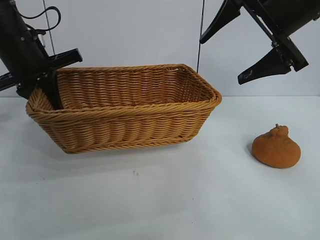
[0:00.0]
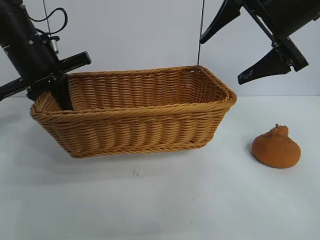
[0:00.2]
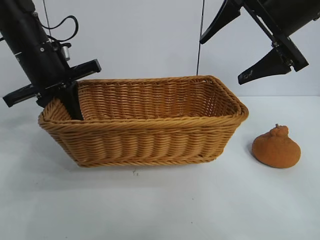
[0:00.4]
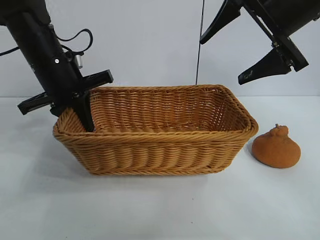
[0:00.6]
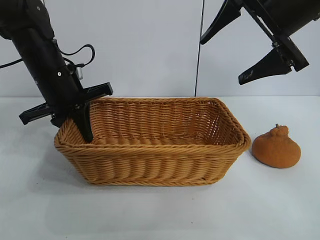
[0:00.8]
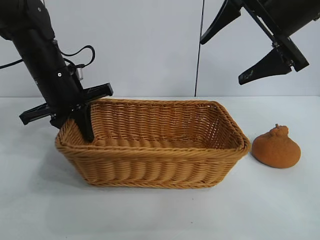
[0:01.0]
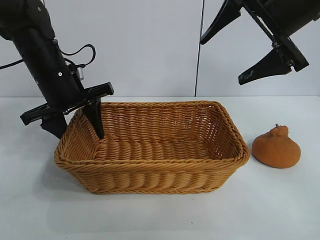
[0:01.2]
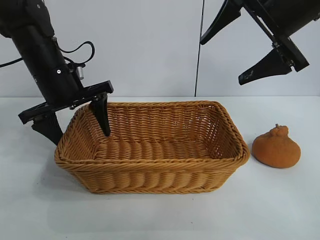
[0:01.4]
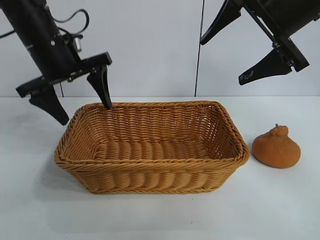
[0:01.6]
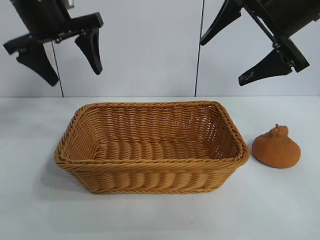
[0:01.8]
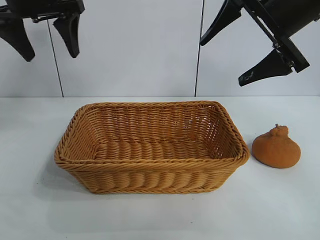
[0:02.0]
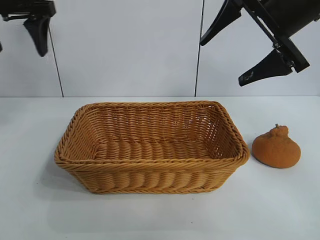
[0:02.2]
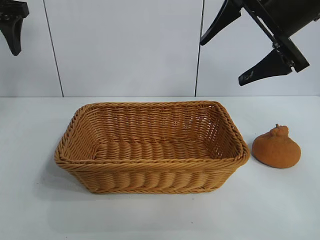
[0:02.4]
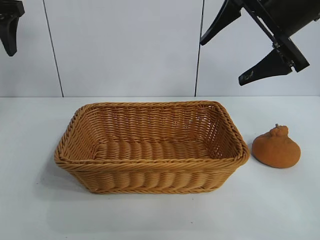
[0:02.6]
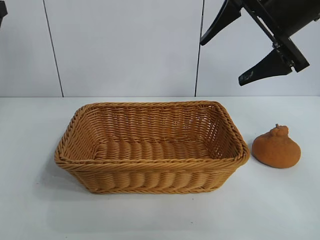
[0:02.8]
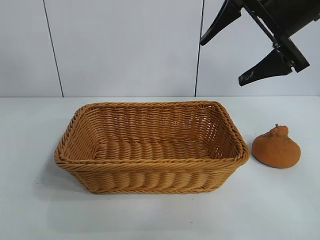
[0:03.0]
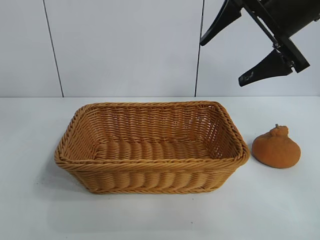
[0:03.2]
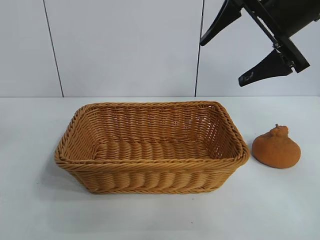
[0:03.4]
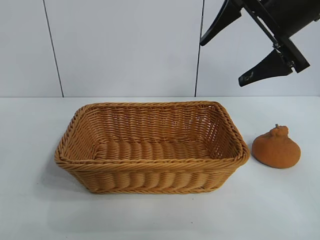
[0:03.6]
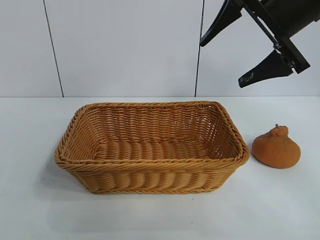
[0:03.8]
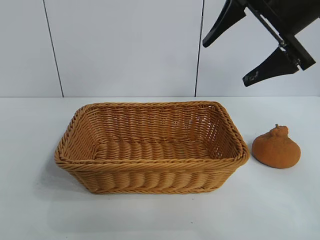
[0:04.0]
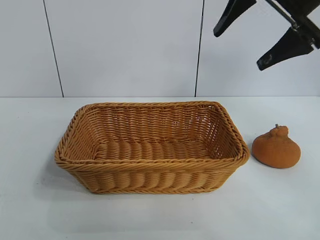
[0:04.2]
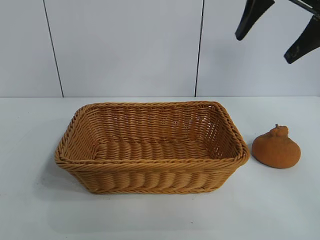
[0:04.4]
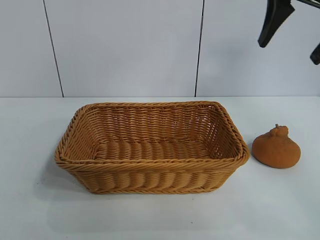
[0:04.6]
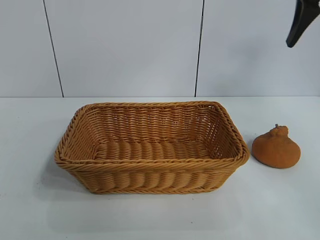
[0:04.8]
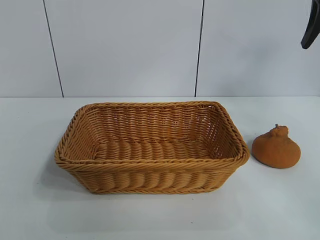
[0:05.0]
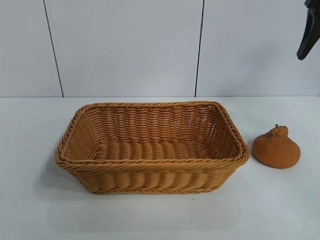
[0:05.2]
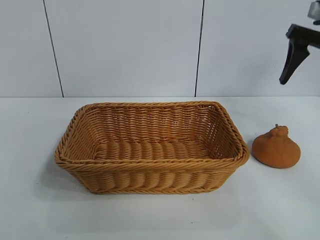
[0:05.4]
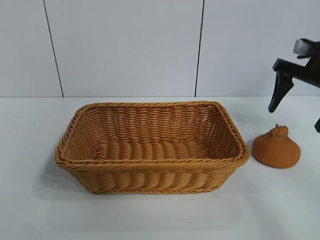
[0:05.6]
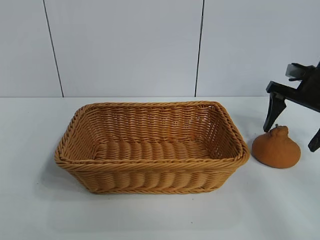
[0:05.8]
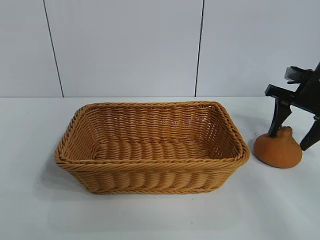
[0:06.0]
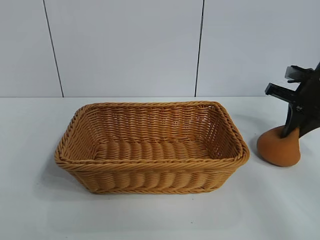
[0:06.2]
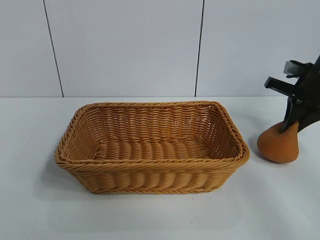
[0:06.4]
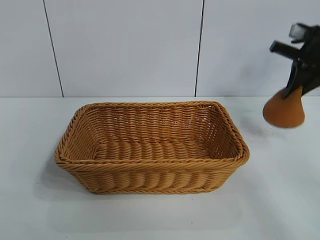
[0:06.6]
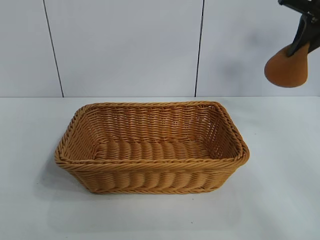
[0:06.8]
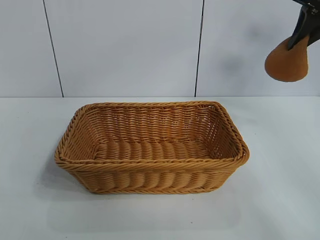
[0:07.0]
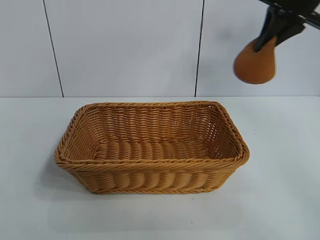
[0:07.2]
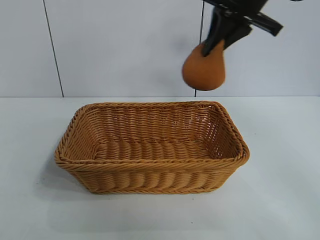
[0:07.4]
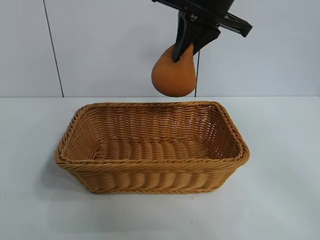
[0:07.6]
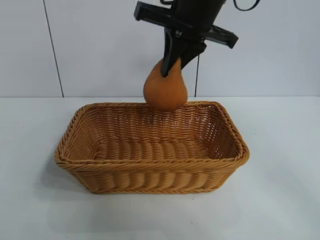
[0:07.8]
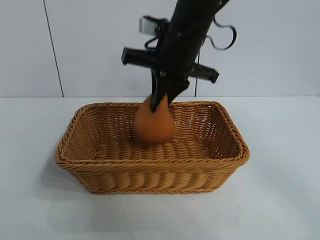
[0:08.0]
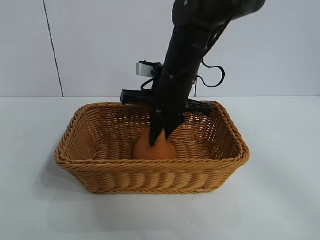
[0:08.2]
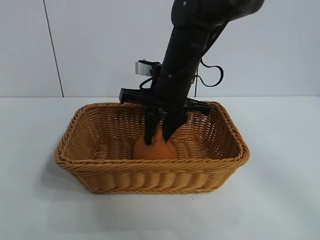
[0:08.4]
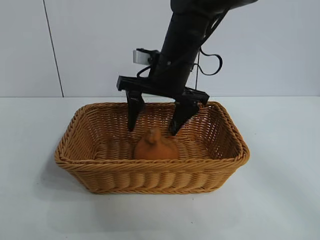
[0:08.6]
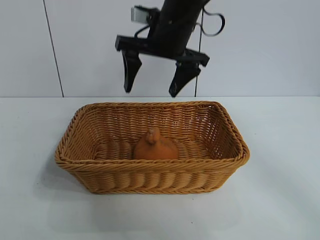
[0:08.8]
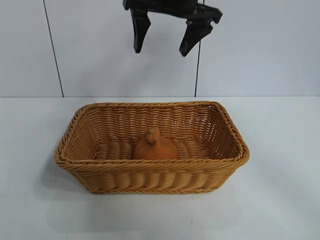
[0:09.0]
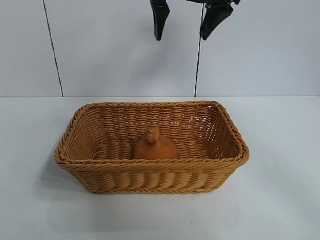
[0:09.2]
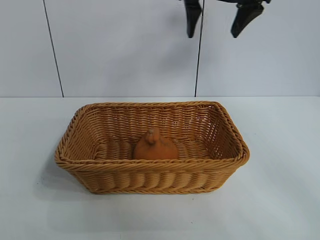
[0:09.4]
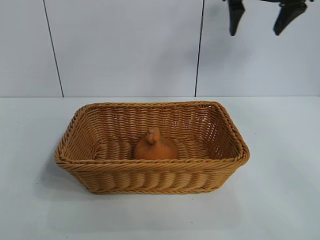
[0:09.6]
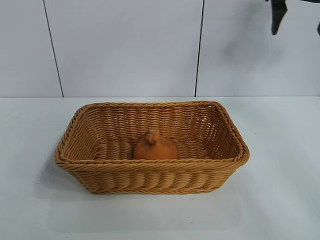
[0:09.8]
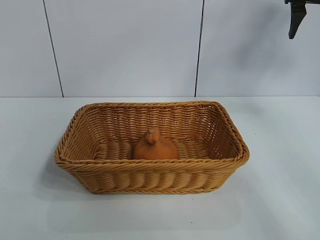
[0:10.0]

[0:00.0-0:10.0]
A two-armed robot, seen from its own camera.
Task of the whole recording: pick up the orange and put it into the basket.
Step, 0:00.0 to 0:01.0: Place the basket in the center of view with left gripper.
Step, 0:01.4 to 0:06.2: Grasp the orange with right gripper.
Step, 0:06.4 to 0:08.6: Place the orange in the basket with right gripper.

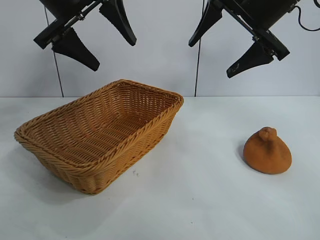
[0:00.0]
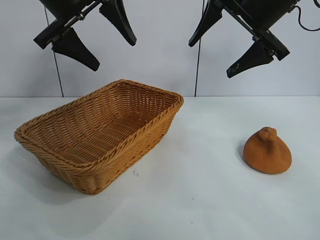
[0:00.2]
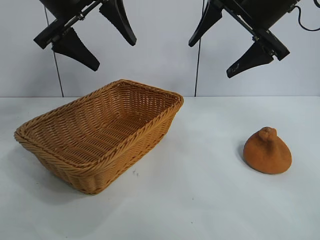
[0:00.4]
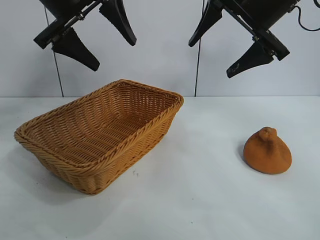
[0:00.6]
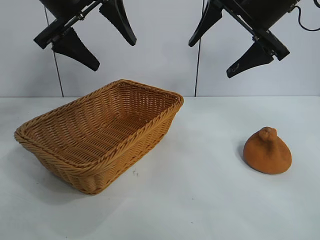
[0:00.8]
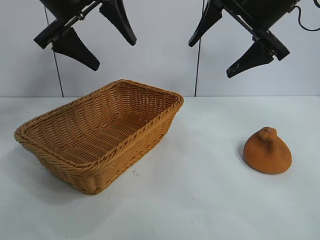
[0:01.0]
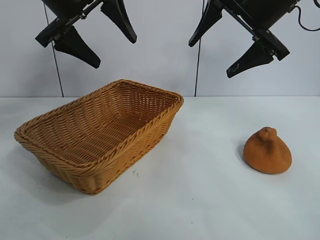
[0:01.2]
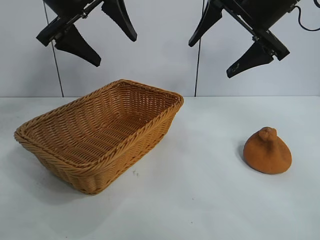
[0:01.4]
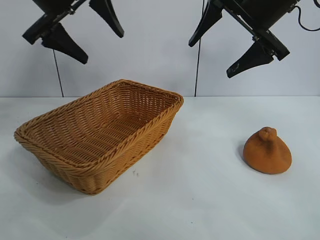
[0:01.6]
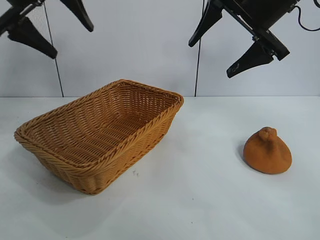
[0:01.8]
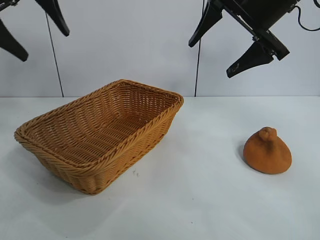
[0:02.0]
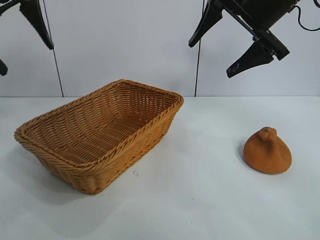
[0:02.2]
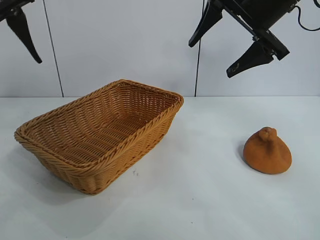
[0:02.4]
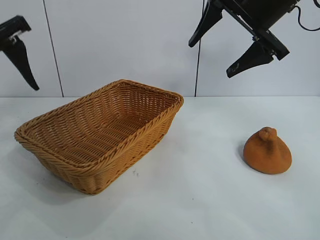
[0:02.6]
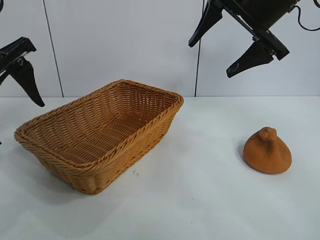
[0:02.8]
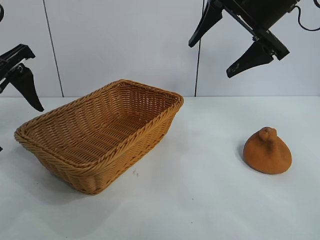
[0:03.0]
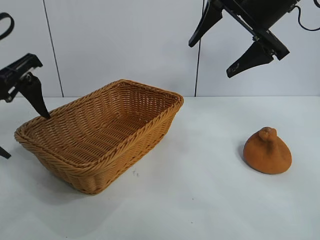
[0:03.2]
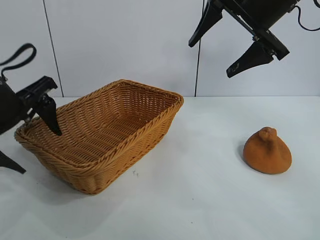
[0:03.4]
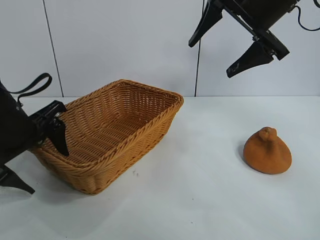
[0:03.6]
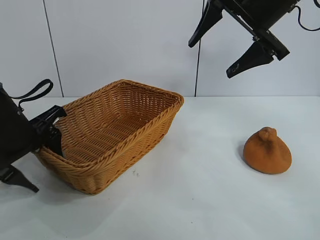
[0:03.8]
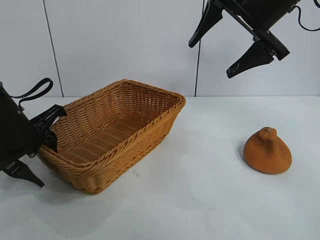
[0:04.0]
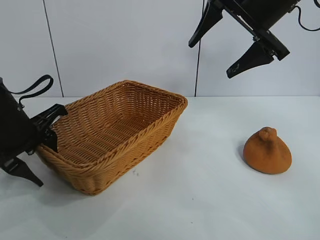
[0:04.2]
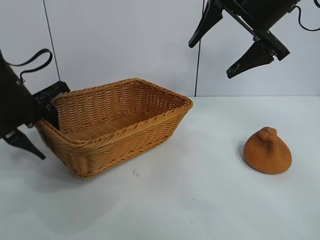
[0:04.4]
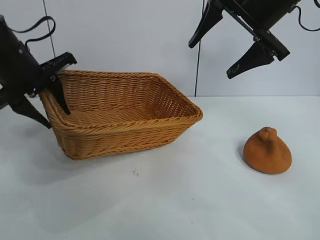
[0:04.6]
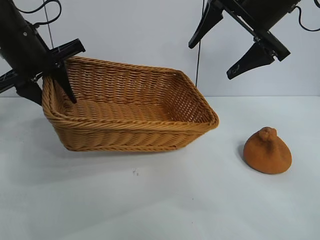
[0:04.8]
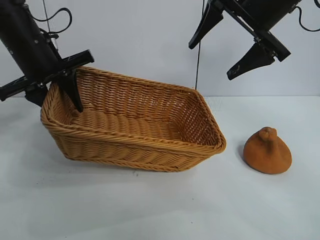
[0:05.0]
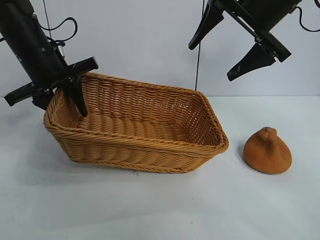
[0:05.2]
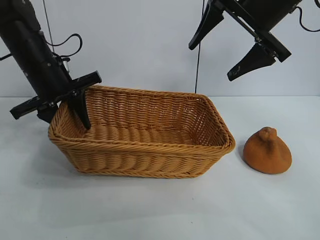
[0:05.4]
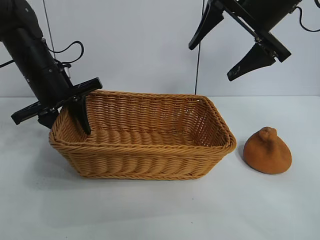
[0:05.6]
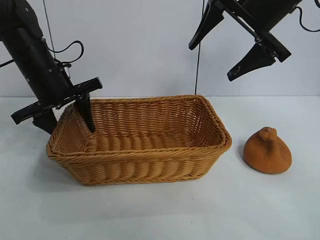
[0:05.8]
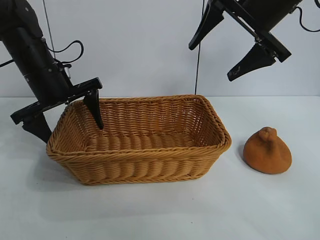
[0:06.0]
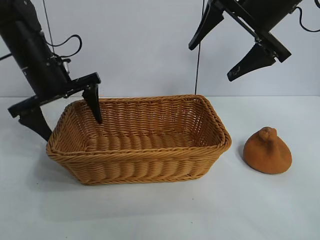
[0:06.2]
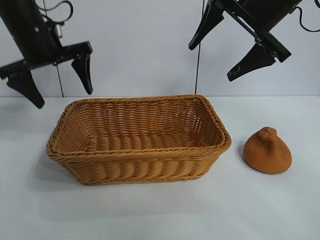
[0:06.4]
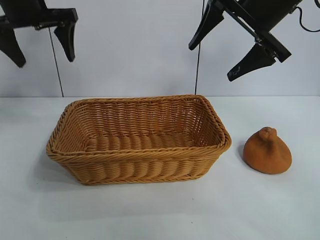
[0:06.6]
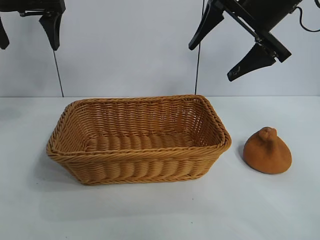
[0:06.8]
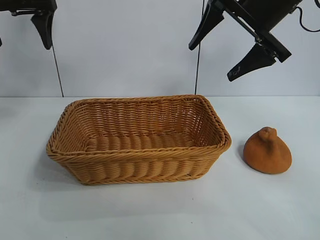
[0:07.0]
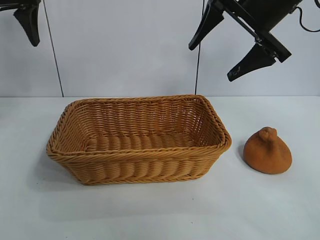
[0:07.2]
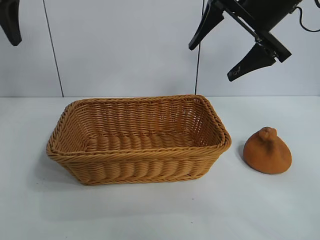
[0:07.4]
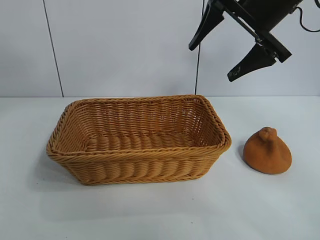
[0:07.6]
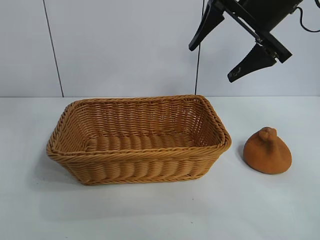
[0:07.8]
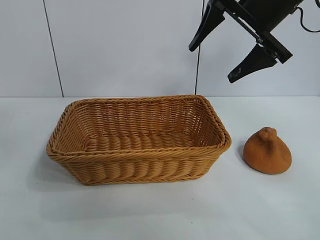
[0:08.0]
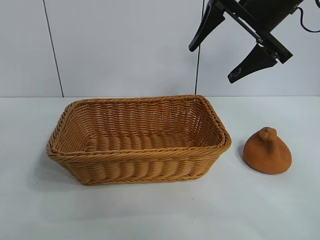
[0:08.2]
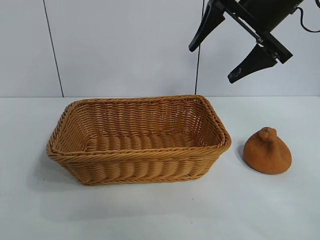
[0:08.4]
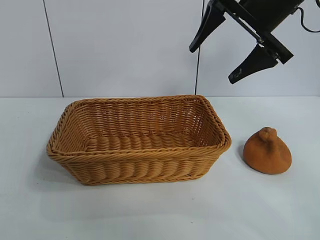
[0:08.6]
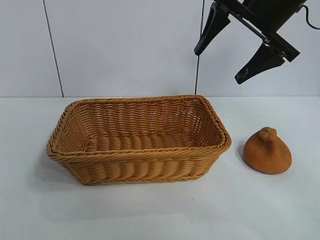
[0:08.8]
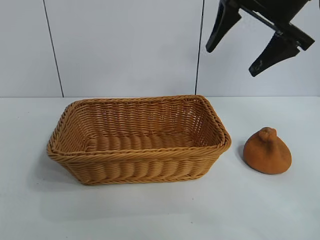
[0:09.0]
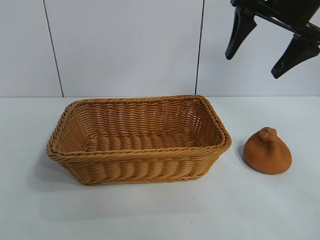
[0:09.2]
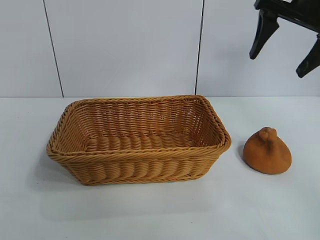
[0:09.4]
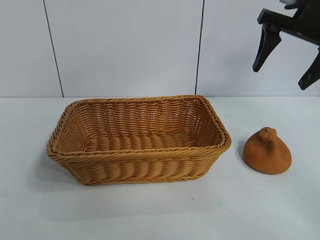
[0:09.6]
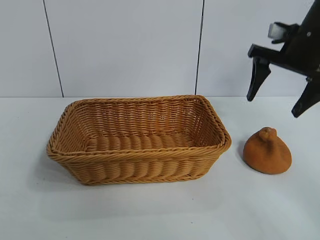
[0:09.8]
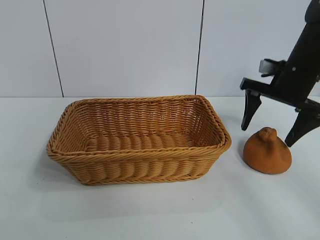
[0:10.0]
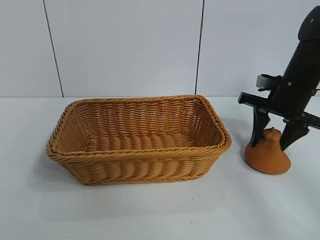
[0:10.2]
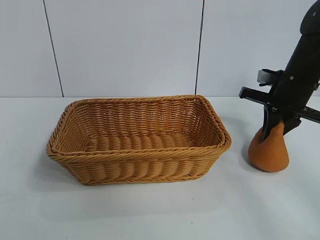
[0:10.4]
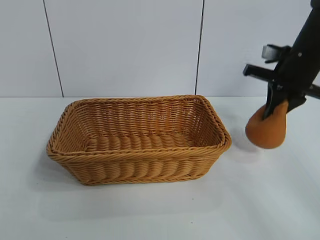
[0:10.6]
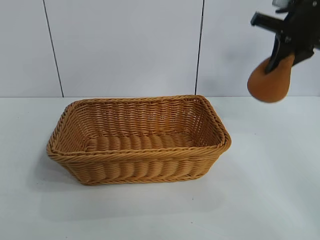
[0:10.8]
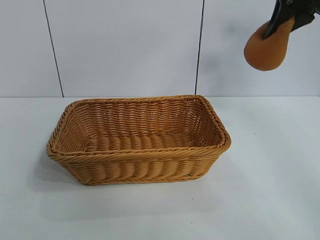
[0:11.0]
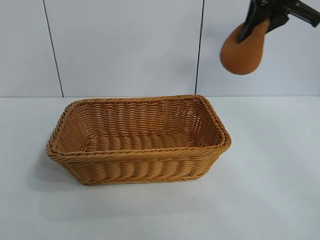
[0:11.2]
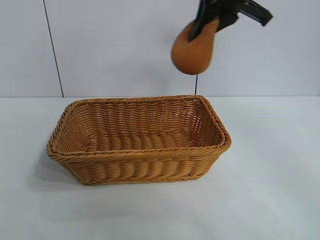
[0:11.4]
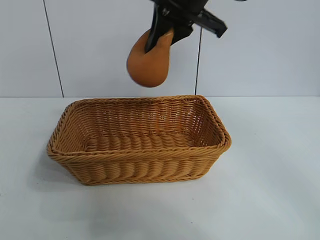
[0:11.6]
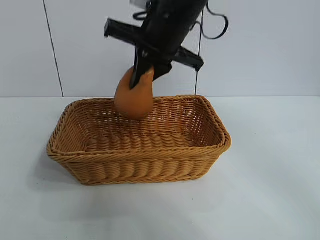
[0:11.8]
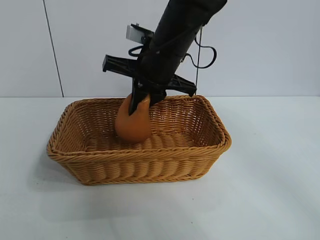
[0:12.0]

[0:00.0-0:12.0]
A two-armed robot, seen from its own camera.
Task of the whole recording: pick up the orange and put it into the basket.
Step, 0:00.8 to 0:04.0: Grasp the basket with left gripper.
Step, 0:04.4 to 0:05.8: Place the basket in the center of view with left gripper.
Step, 0:06.0 to 0:10.2: Grasp the orange with right gripper.
